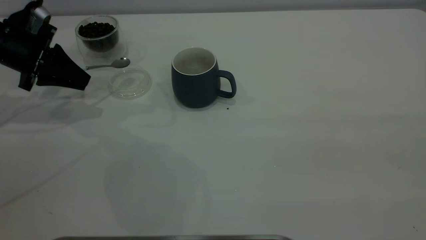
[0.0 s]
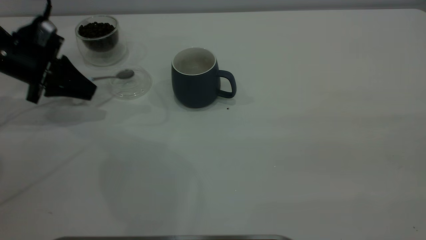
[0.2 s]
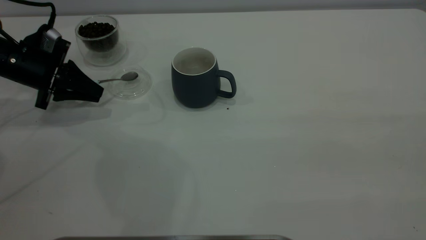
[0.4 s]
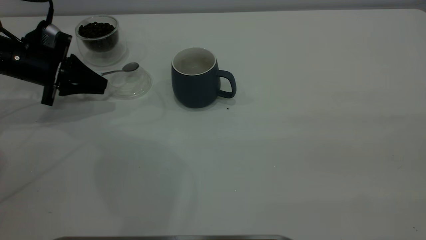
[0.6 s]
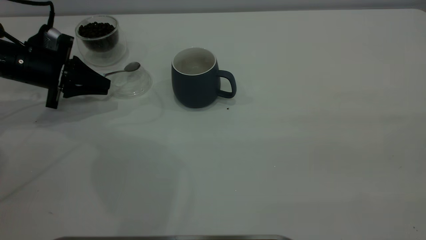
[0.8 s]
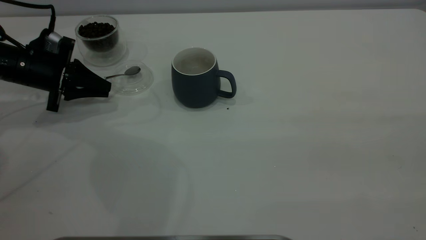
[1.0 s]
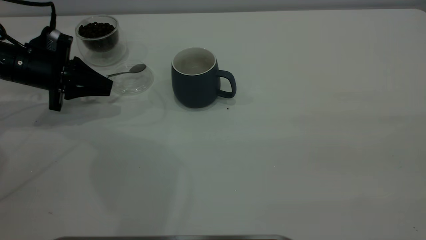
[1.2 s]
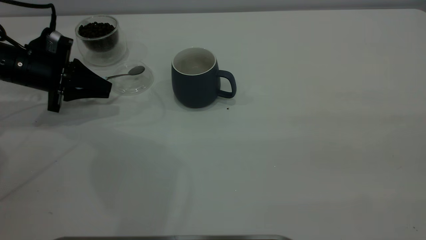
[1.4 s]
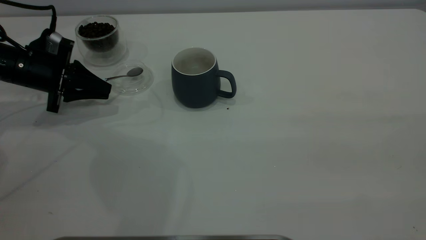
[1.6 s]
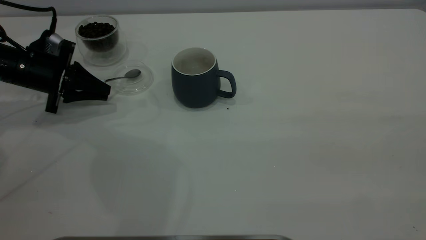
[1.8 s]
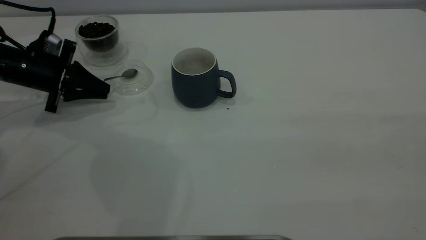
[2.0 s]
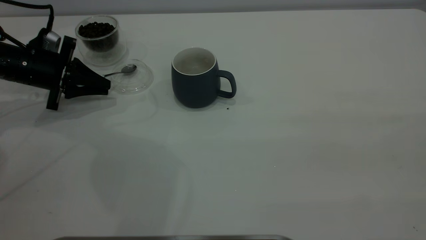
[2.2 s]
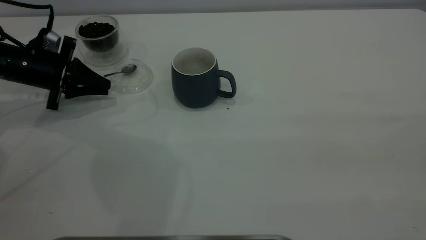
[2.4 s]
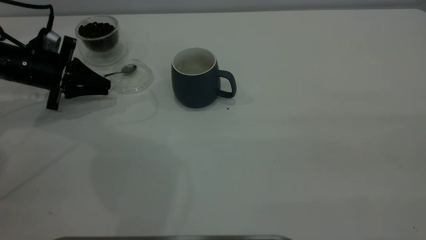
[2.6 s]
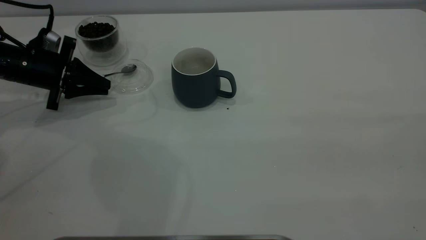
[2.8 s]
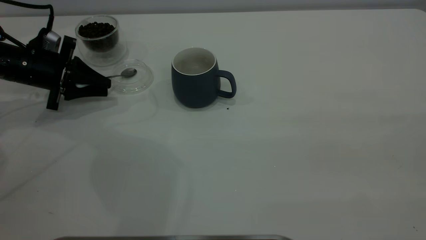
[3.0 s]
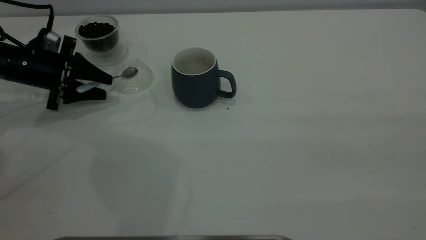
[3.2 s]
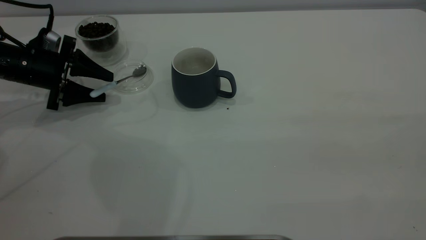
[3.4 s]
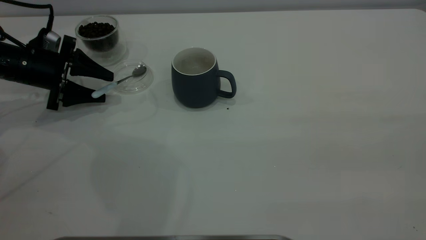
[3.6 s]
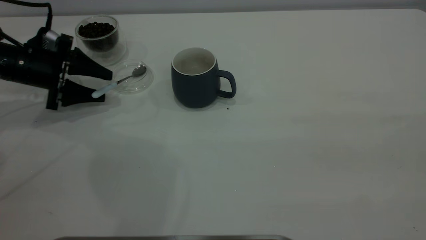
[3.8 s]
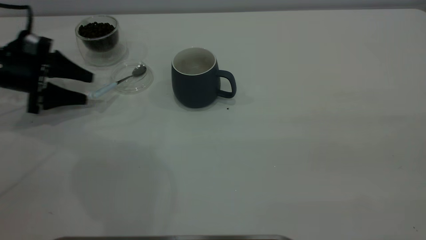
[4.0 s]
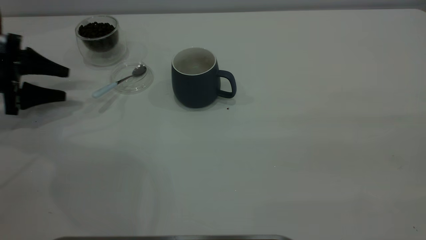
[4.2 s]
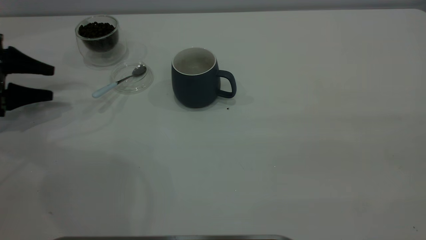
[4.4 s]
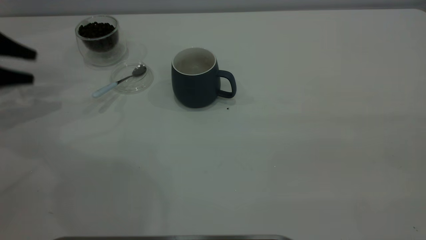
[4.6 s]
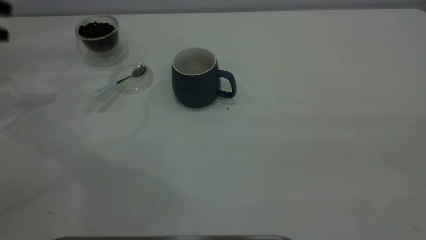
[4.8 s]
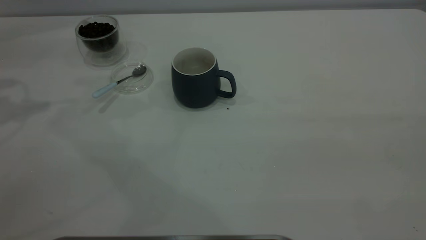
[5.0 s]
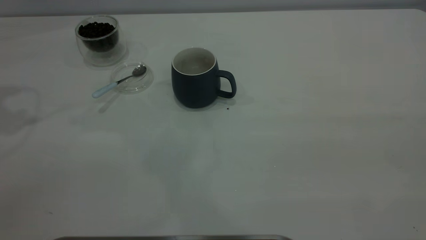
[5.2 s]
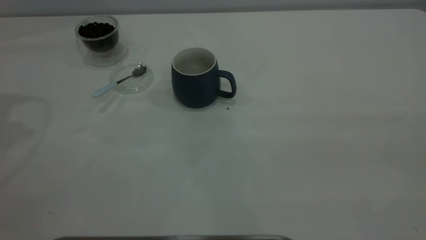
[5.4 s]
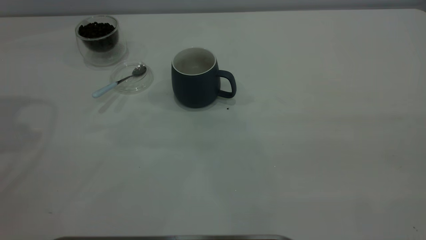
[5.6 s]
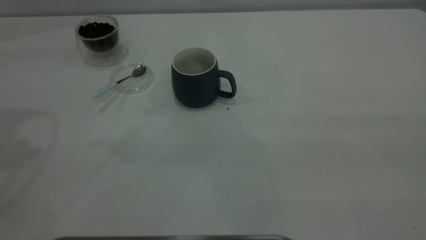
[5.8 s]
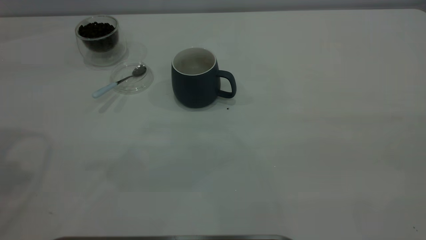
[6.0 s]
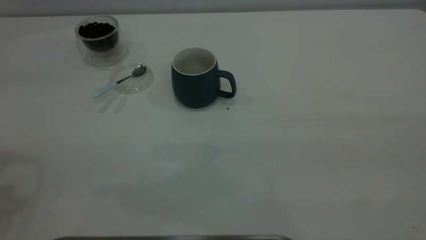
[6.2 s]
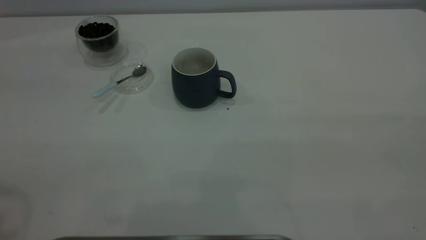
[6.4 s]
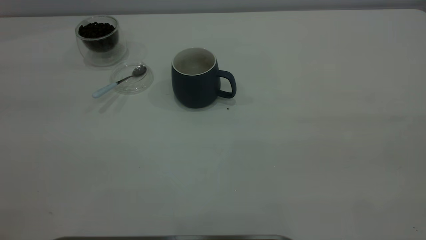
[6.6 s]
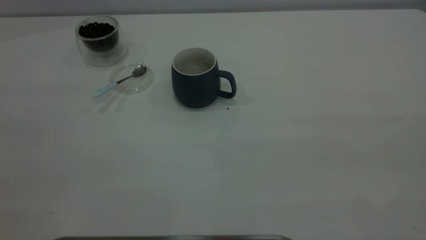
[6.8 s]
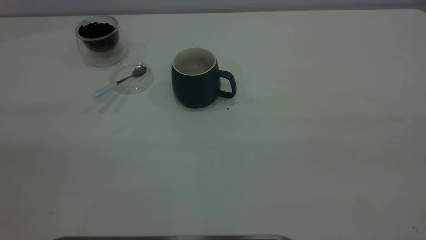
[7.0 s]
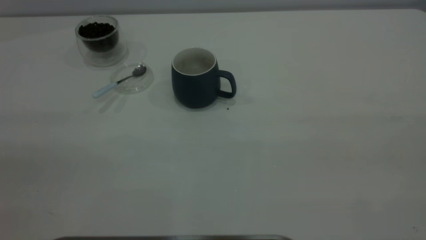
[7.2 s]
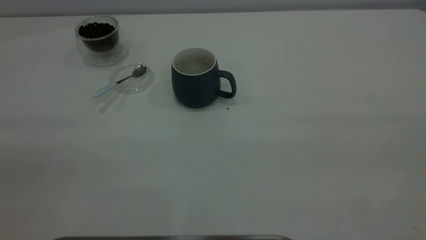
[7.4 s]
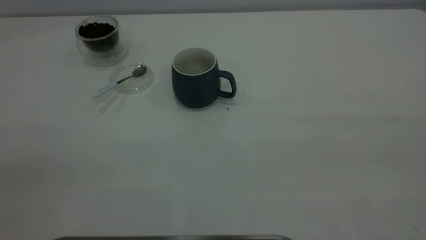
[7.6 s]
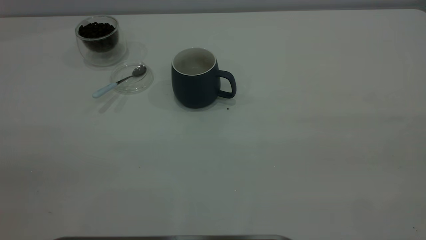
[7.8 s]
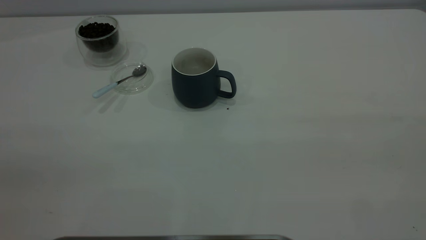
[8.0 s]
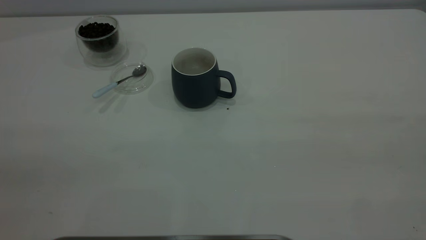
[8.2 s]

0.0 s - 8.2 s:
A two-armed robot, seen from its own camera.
Task of the whole recording: the right gripper place the grey cup in the center of the table, the left gripper take the blue spoon from the cup lid and scoop out the coffee beans from the coffee cup and put them into the grey cup, the left gripper put the spoon back into the cup lid.
Step, 0.0 s - 4.0 s: Place the spoon back in its original place.
0.0 s - 1.6 s: The grippers stay close to where they were, moving slightly.
1.6 s - 3.2 s: The left gripper opens its fingers.
3.2 s - 5.0 s: The left gripper travels upward by roughly 25 cm.
